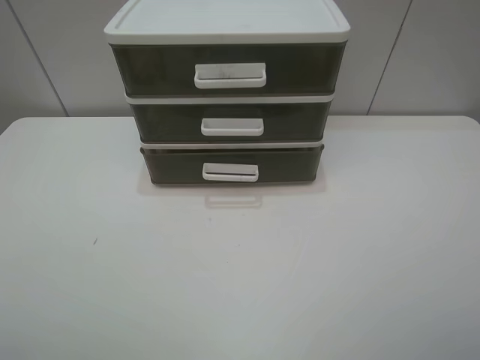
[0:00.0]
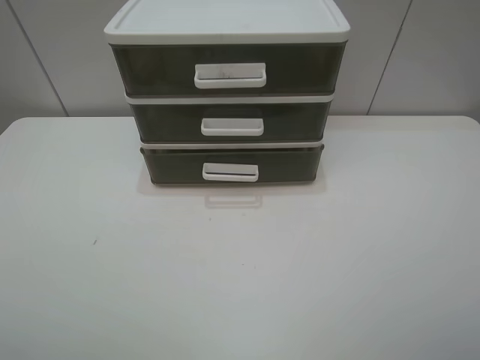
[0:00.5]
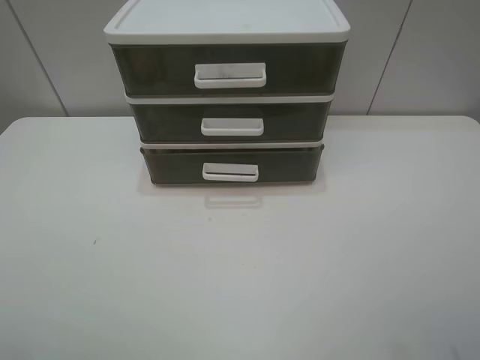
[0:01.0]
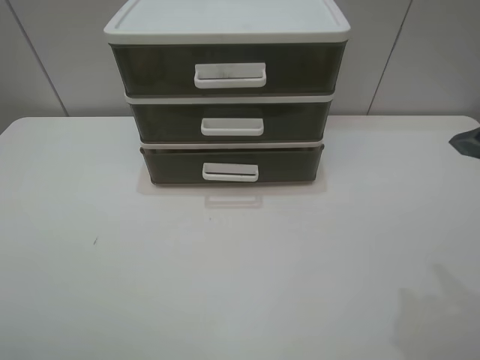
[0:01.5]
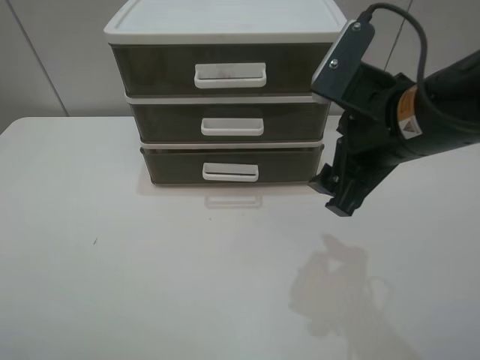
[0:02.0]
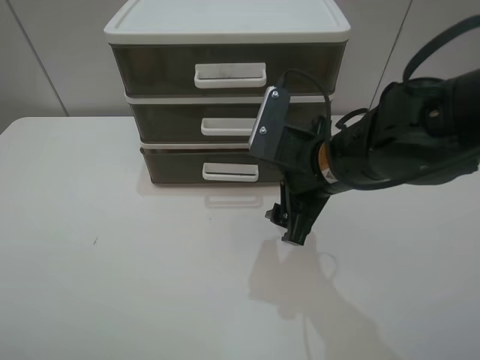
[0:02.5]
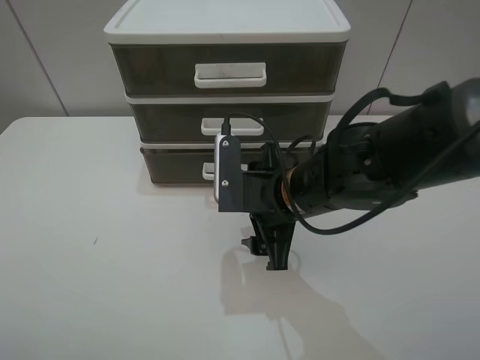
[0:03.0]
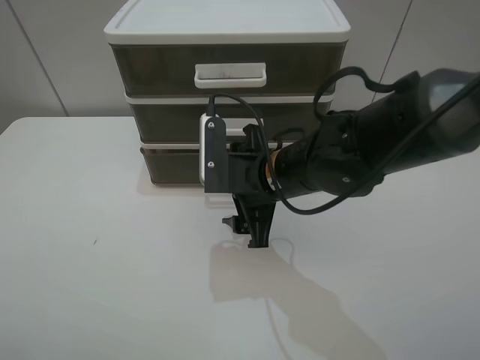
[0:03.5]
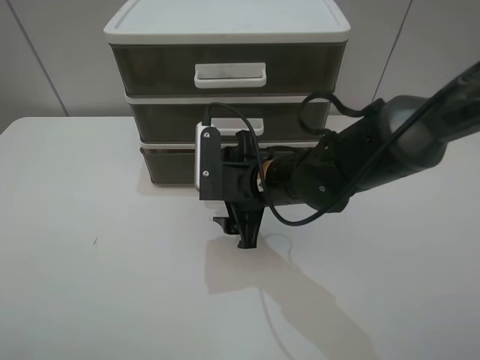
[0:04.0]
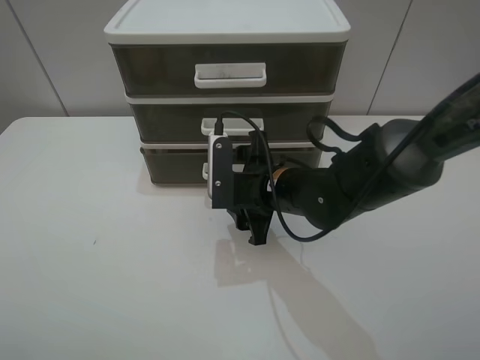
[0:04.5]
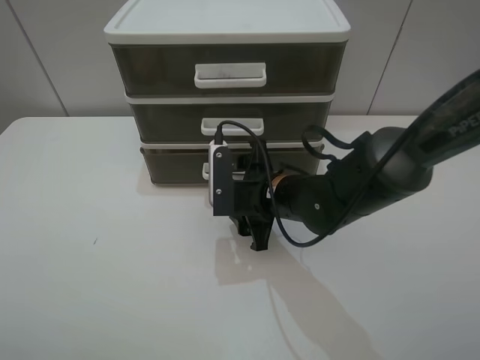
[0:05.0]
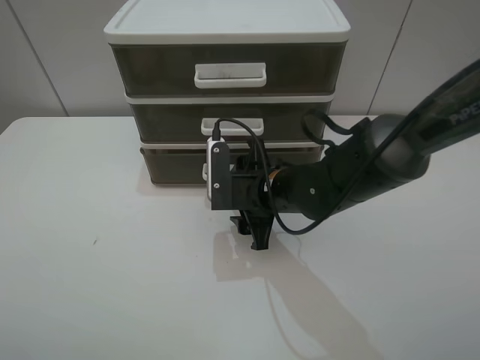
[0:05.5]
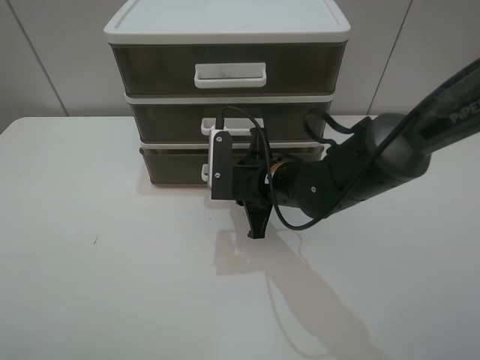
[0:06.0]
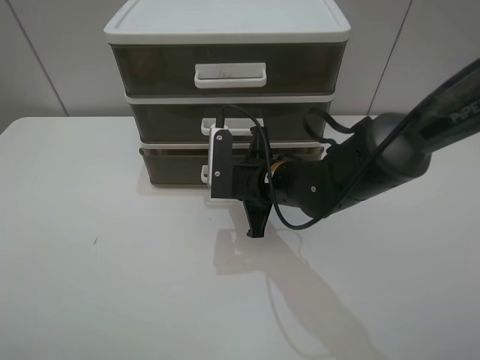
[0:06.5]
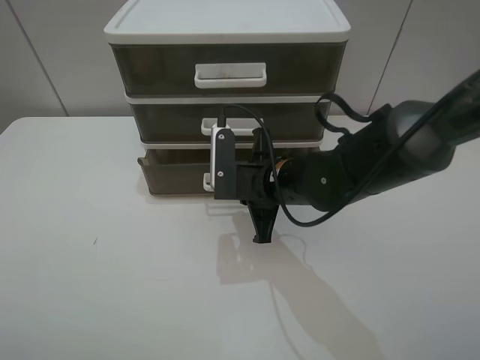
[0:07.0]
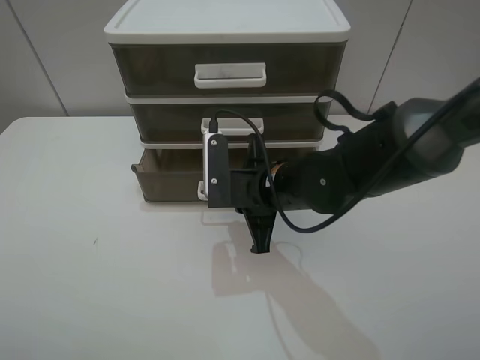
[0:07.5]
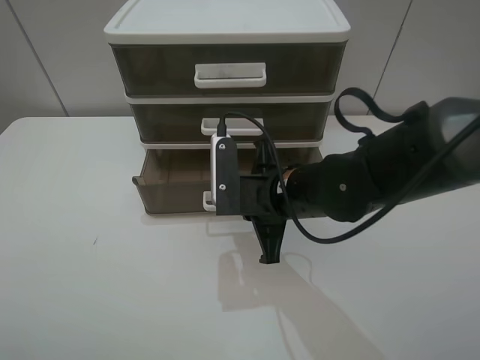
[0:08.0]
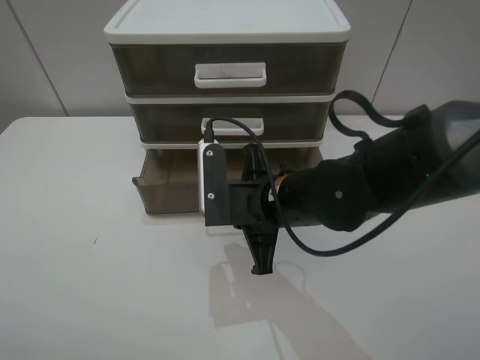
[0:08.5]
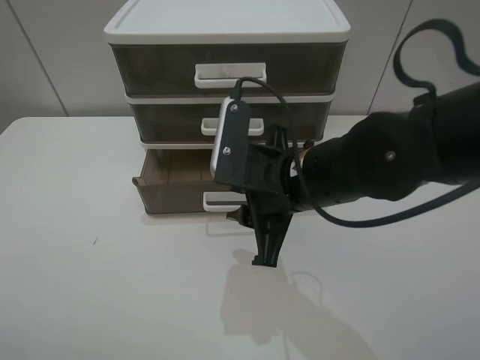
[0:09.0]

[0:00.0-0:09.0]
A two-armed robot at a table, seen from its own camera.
Task of the whole recording: open the bottom drawer.
Step, 0:00.0 to 0:06.5: Grab the bottom drawer with the right gripper.
Step, 0:07.0 to 0:09.0: Pull open the drawer with the right gripper.
0:00.0 to 0:02.0: The right gripper moves forward and to the left, some 25 cm.
0:02.0 to 0:04.5: The right gripper is displaced downward and to the left by some 15 cm.
0:04.5 to 0:07.0: The right gripper closes.
0:07.0 to 0:09.0: The right gripper moves upward and backward, about 10 cm, and opens its fingers.

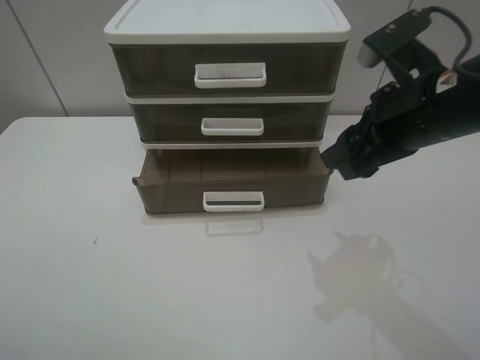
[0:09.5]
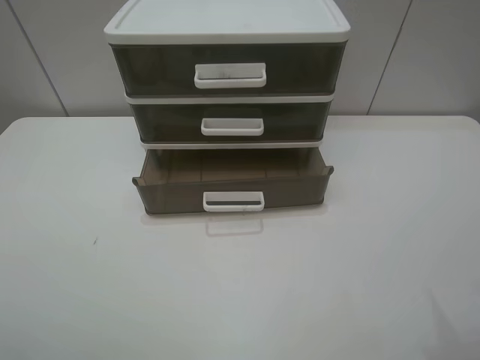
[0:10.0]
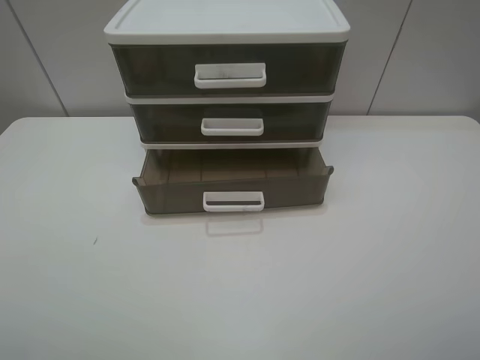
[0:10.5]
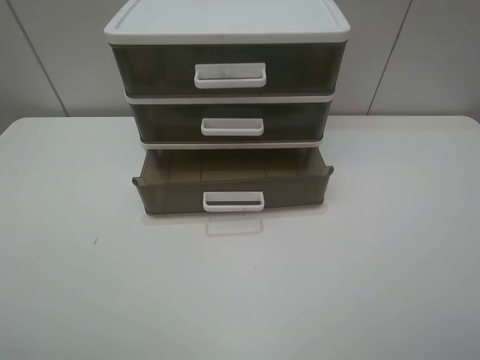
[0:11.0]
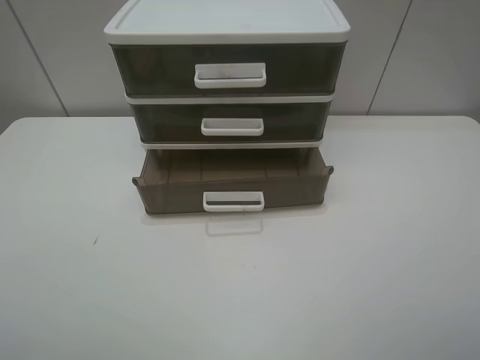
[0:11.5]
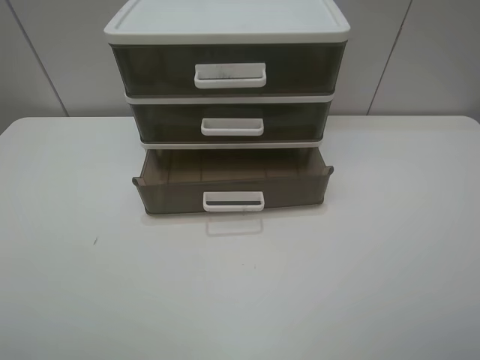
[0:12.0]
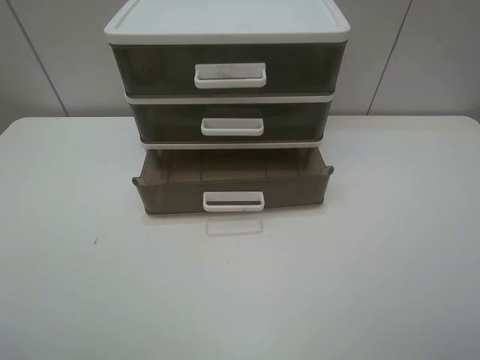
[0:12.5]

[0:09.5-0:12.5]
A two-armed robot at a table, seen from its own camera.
Task of the whole recording: open the bottom drawer.
0:09.5 to 0:11.0: The right gripper shifts roughly 25 cm backward.
